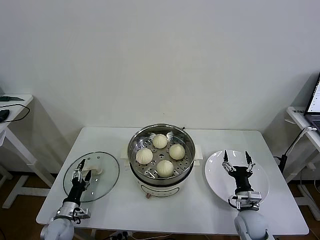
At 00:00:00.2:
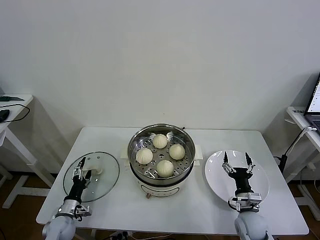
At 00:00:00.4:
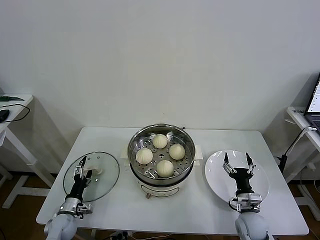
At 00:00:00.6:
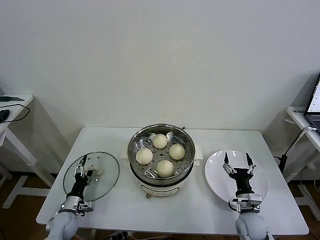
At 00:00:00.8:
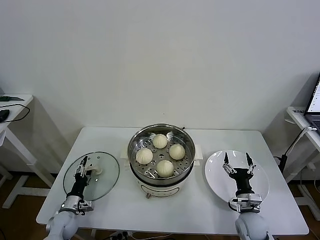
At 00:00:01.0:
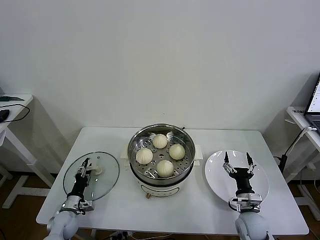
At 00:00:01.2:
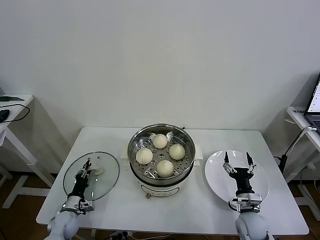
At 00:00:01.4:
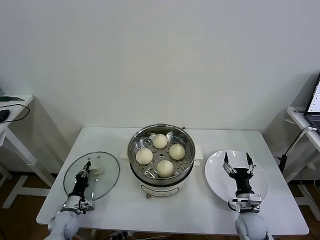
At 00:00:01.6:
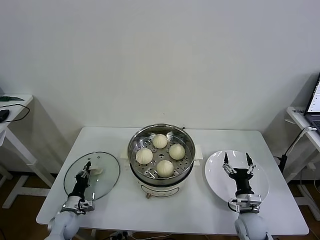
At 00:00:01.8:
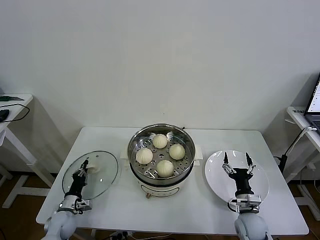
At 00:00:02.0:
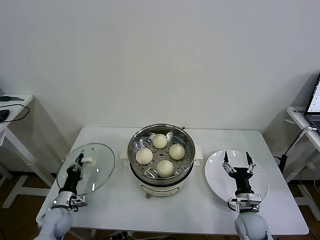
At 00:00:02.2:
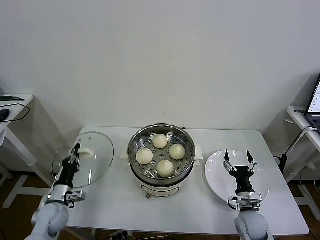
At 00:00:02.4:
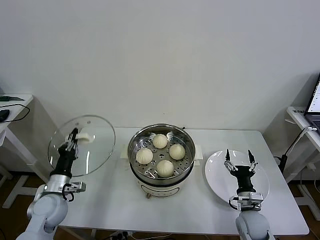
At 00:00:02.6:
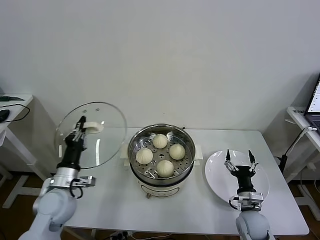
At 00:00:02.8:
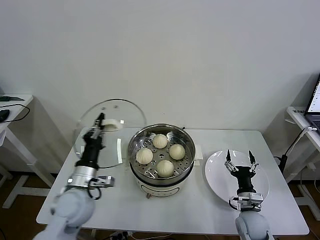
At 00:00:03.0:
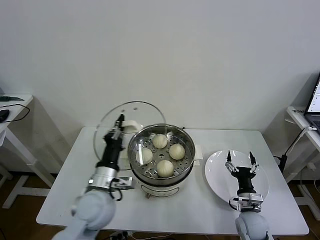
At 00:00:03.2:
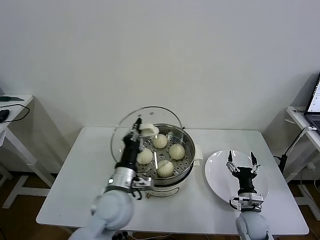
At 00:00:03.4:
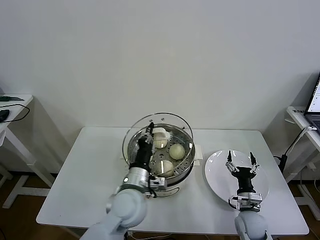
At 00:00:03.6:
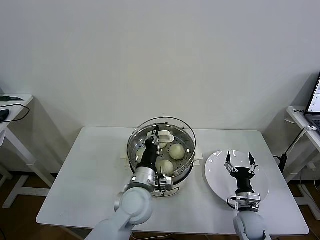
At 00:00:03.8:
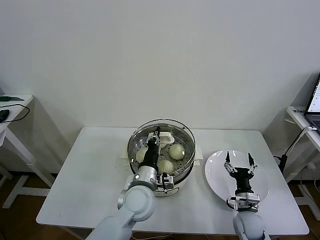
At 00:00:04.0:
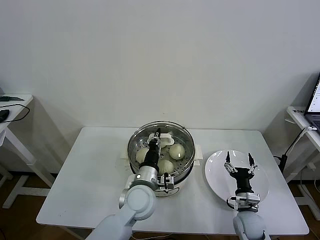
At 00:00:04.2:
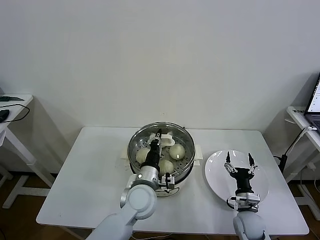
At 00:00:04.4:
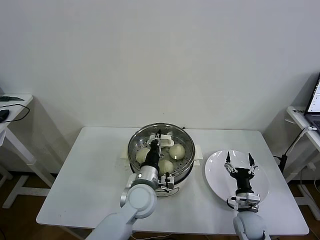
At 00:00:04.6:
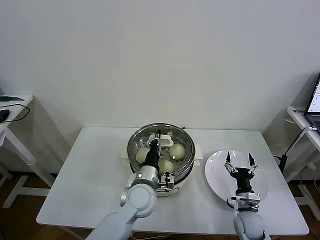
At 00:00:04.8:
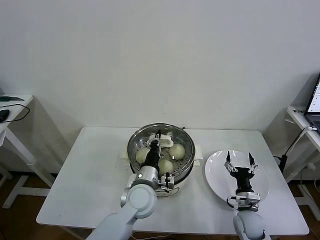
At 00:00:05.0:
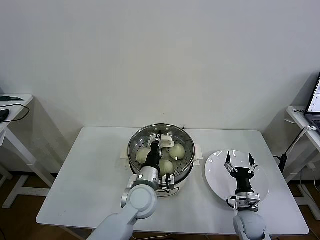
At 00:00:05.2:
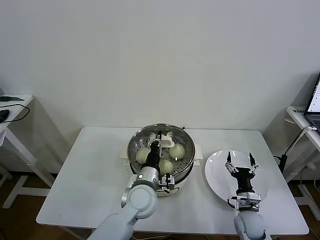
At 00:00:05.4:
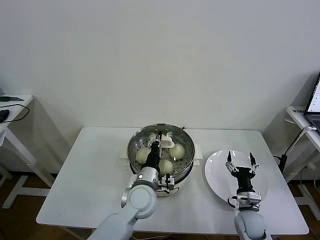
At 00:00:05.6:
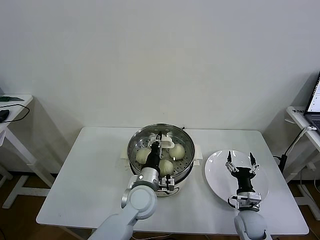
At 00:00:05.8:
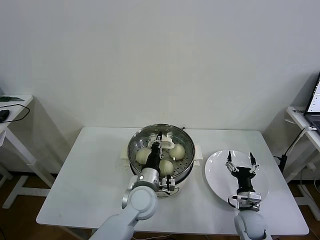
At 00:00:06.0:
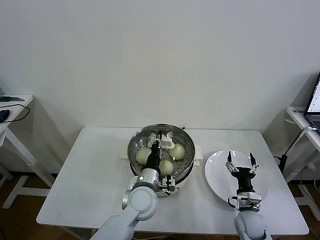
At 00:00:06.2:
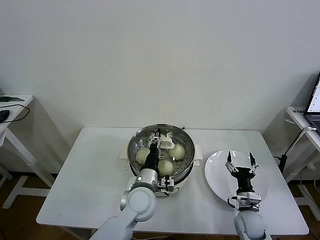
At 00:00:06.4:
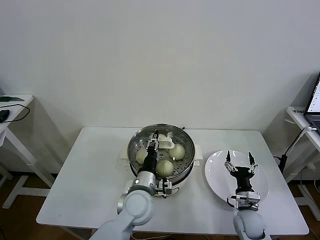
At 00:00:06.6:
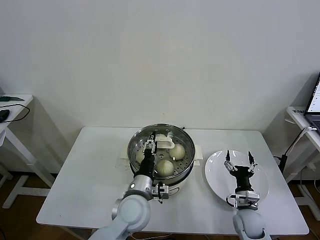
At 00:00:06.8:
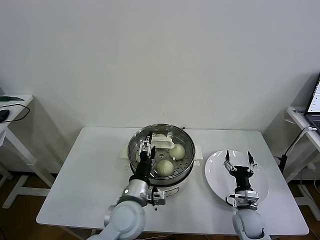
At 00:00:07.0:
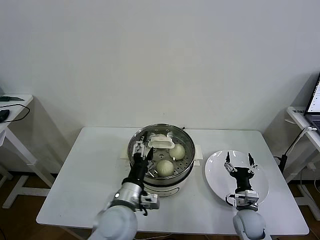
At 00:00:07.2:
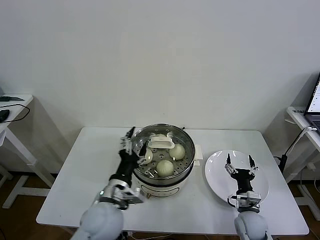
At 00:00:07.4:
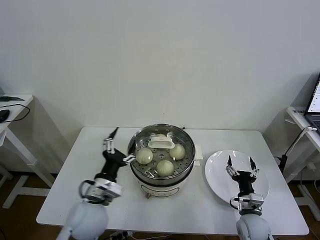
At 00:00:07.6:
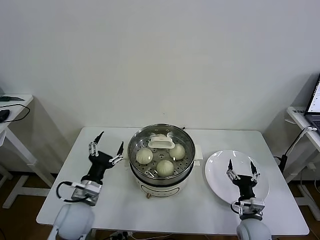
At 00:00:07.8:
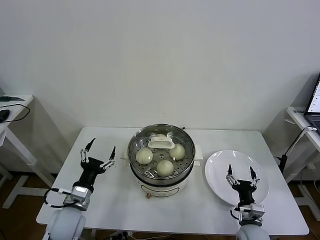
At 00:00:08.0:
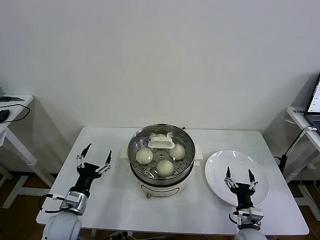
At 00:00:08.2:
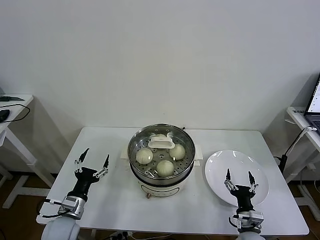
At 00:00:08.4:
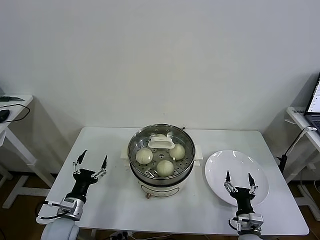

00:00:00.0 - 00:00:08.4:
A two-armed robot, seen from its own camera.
Task of the whole recording: take steamed baozi put them in steamer then cover it.
Step, 00:00:01.8 - 00:00:06.0: Place the pot lid on the steamer with left gripper.
00:00:00.0 - 00:00:01.4: The left gripper closes its fingers.
00:00:01.4 - 00:00:02.8: The left gripper heads upward and to the right, covering some 25 cm.
00:00:02.8 - 00:00:04.2: The left gripper goes roughly 20 cm to the right.
00:00:04.2 - 00:00:05.6: The grippers stay close to where they were, moving slightly.
00:00:05.6 - 00:00:07.0: The left gripper moves backward, some 5 cm, and opens its fingers.
00:00:07.0 - 00:00:08.4: The right gripper is displaced backward by approximately 5 cm, while the left gripper travels to the left and downward by some 25 cm.
